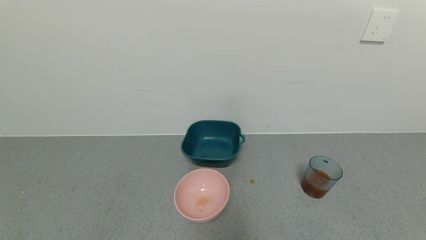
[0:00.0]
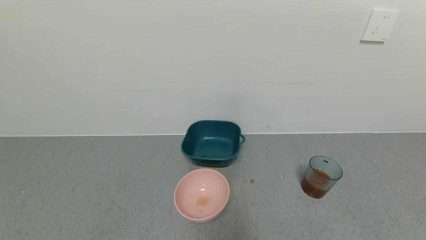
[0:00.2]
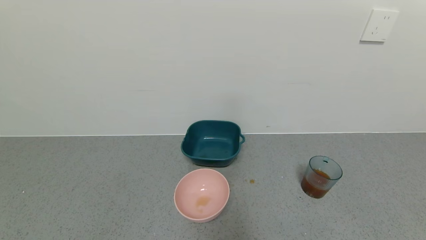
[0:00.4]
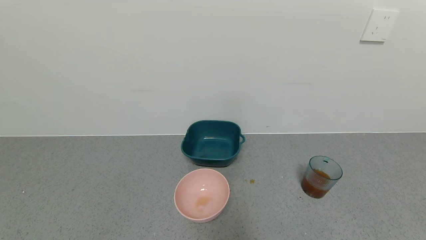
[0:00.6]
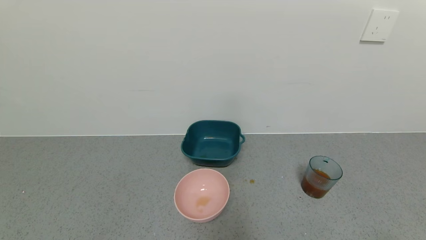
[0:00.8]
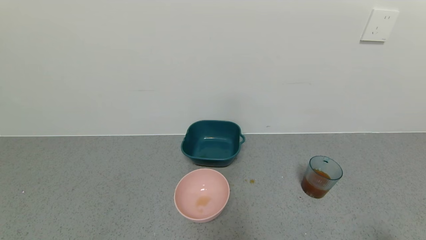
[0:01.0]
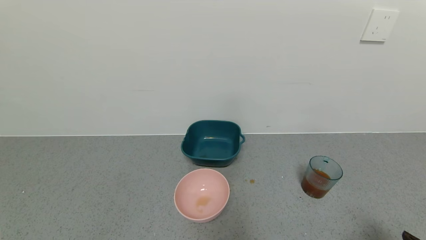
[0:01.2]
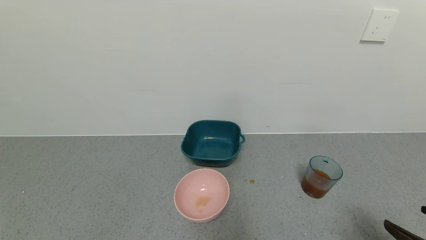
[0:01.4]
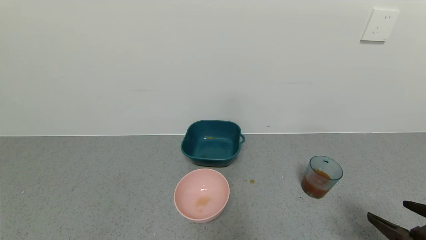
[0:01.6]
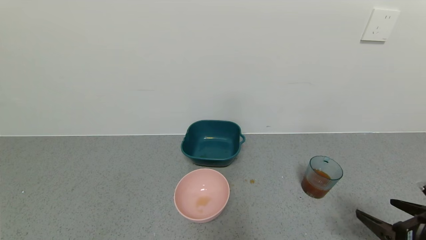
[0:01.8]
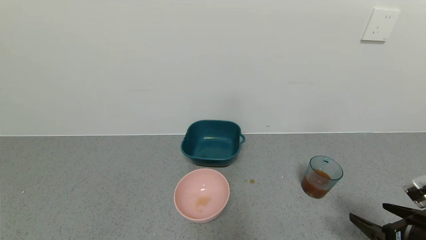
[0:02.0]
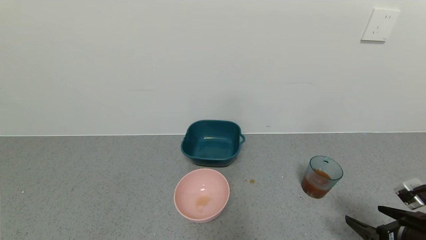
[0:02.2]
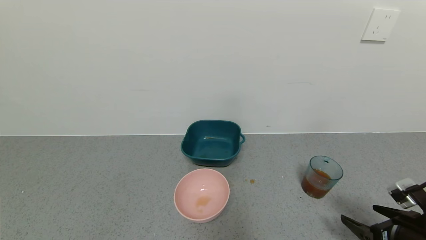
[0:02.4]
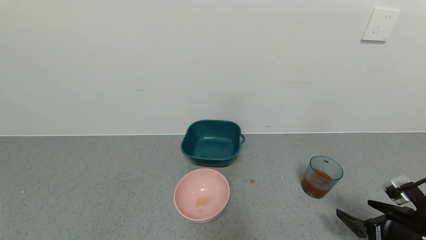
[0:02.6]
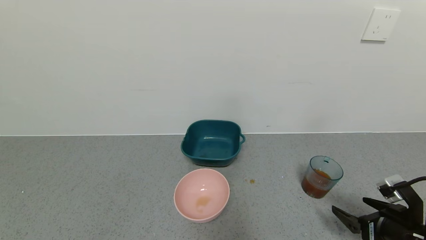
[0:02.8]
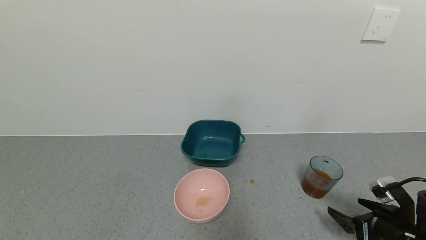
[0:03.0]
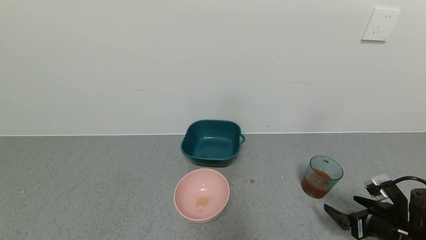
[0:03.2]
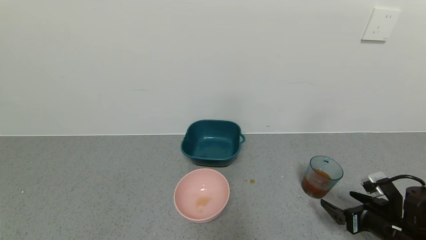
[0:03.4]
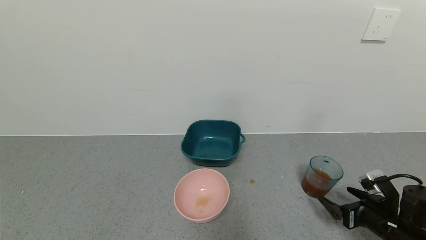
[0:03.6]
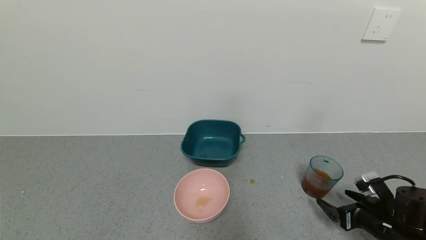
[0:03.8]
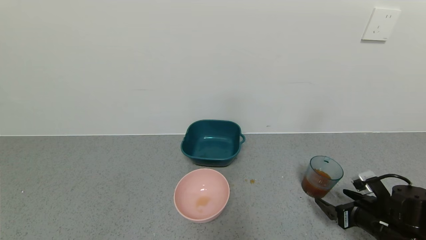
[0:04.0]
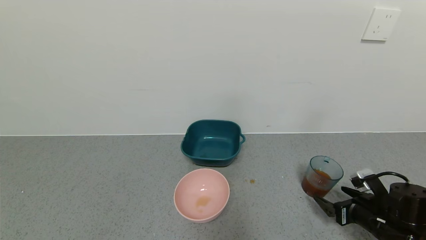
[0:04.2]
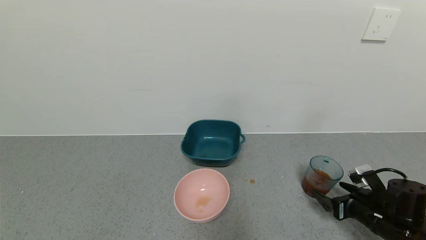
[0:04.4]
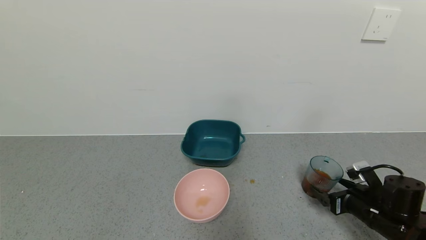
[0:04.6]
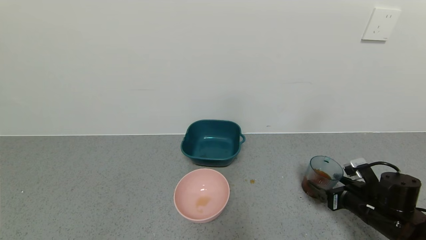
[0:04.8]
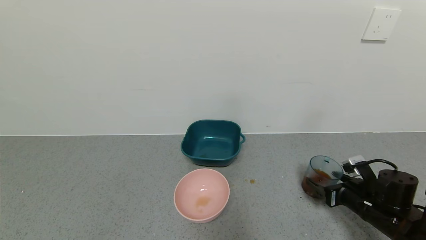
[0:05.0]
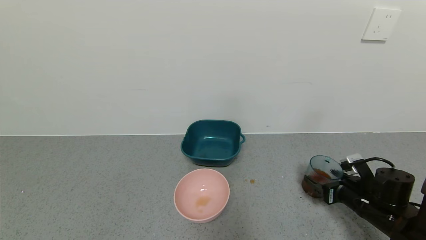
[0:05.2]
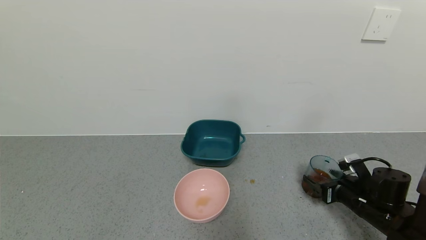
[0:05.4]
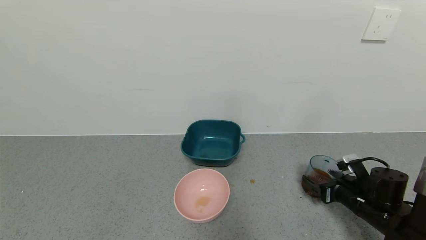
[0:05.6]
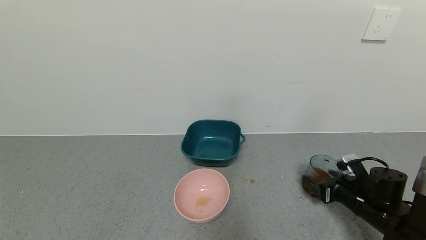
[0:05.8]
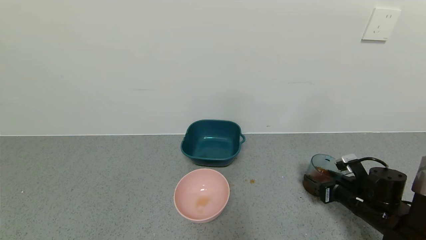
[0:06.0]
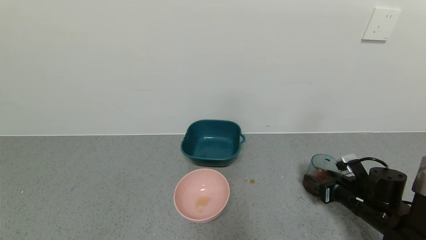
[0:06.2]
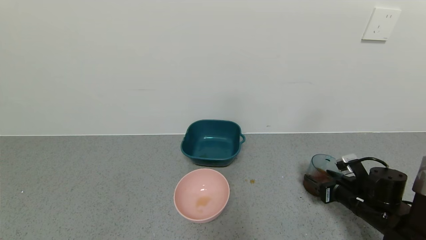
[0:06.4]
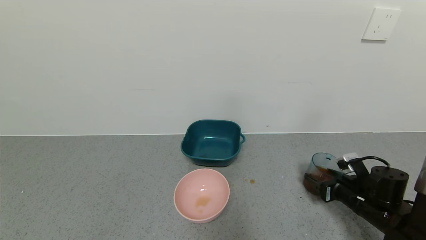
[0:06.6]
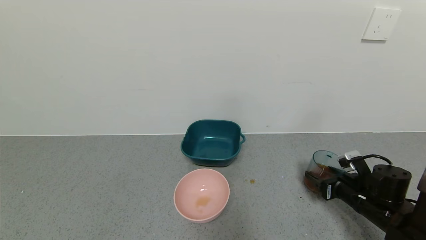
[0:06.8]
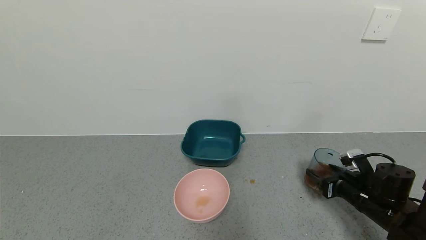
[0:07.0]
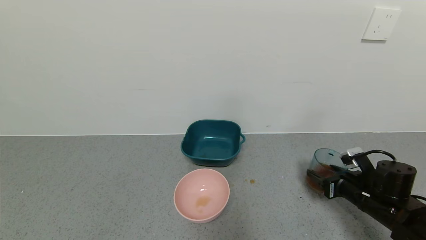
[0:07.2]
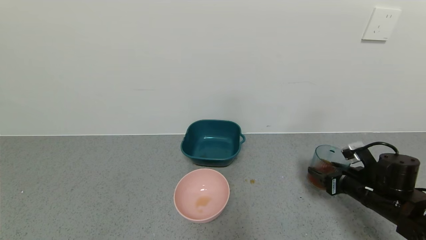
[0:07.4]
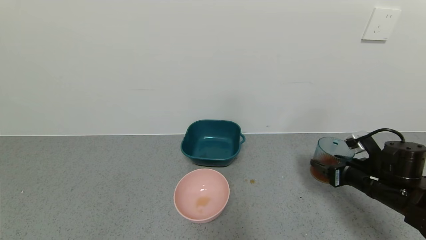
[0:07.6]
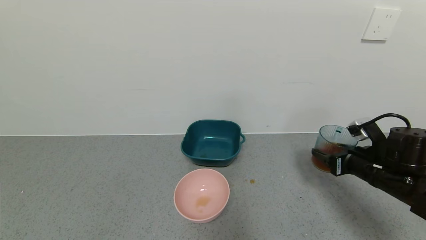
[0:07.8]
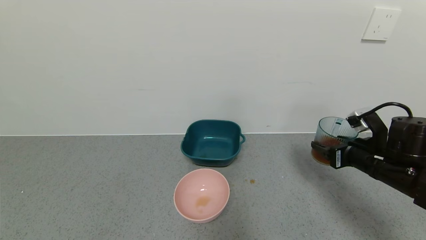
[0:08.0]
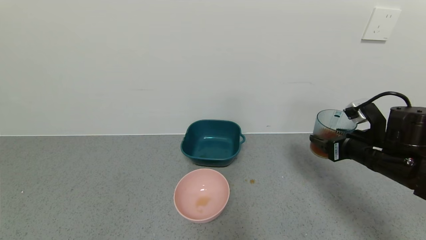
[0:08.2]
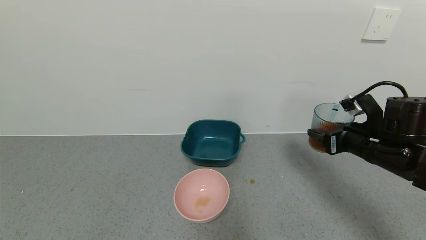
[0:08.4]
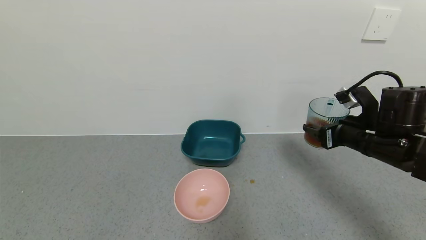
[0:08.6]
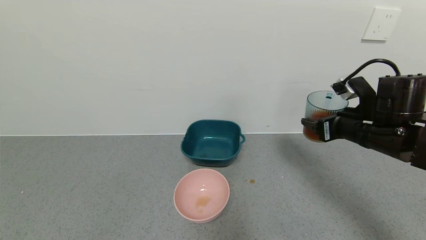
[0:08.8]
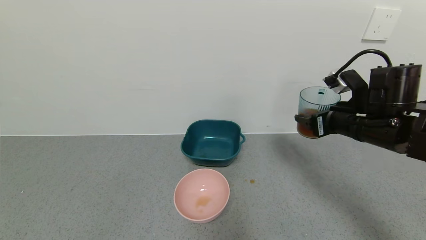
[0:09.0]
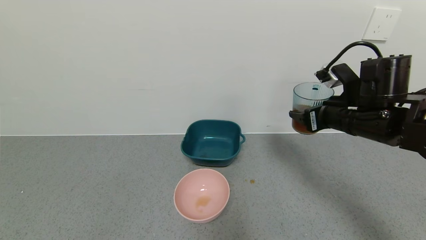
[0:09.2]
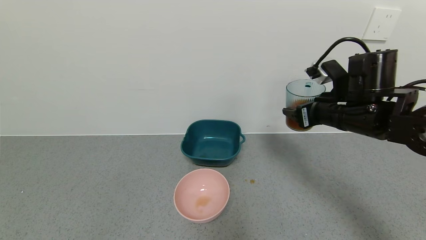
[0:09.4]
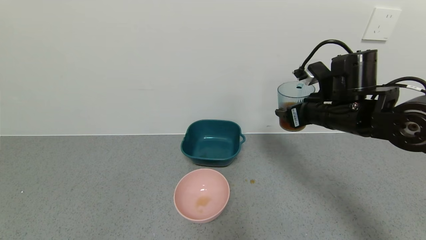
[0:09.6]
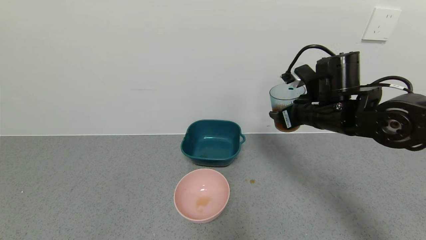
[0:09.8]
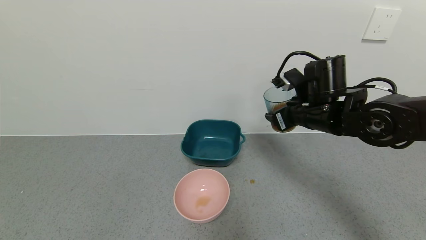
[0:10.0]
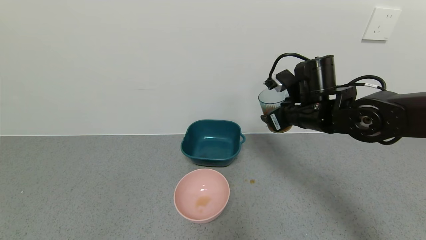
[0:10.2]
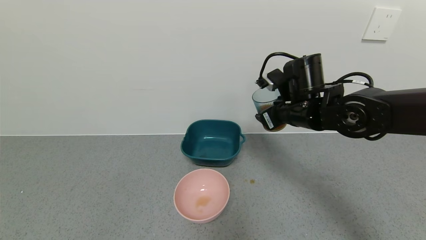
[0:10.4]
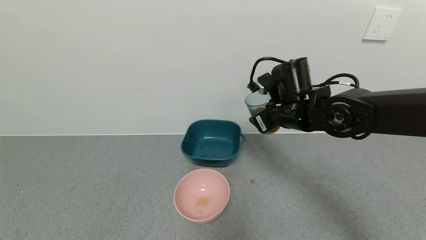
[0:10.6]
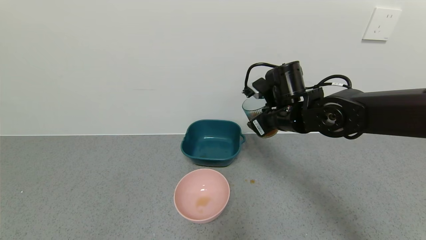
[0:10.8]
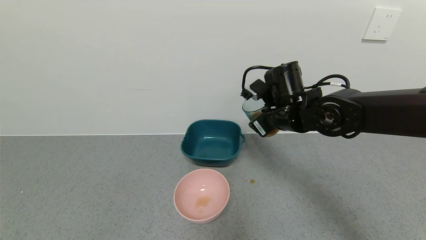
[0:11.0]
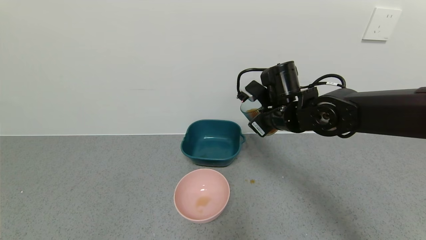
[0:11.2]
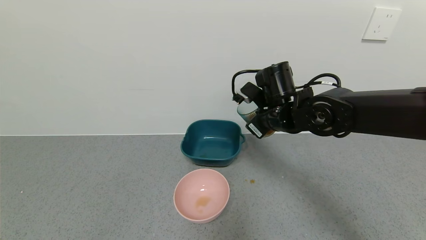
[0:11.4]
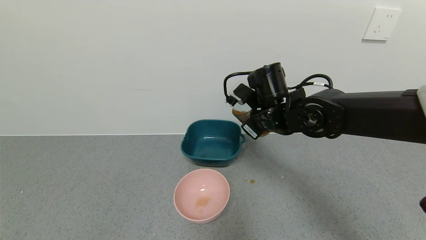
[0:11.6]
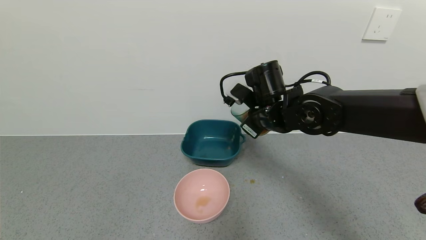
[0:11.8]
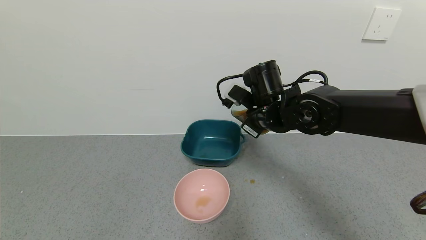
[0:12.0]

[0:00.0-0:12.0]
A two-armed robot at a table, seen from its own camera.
Task of the whole recording: use a gripper to pick up the cup and pour the liquid into a bowl or tray.
Step, 0:06.4 to 0:11.4: Pick up blue cup filled with tea with right gripper.
0:00.0 to 0:01.6: The right gripper heads forward and upward, covering some 15 cm.
0:01.6 to 0:03.0: The right gripper moves downward and forward, some 10 cm.
0:03.0 to 0:04.4: The right gripper moves forward, about 5 cm.
0:04.4 to 0:06.0: The right gripper closes its fingers.
0:06.0 to 0:07.6: The right gripper moves upward, roughly 5 cm.
0:07.6 to 0:09.0: The right gripper moves upward and to the left, approximately 15 cm.
0:09.0 to 0:10.4: The right gripper heads to the left and forward, covering some 10 cm.
0:10.4 to 0:12.0: The right gripper travels to the left by roughly 5 cm.

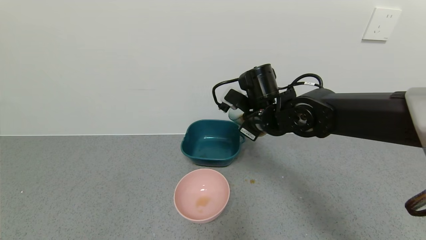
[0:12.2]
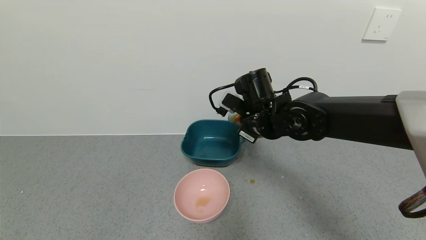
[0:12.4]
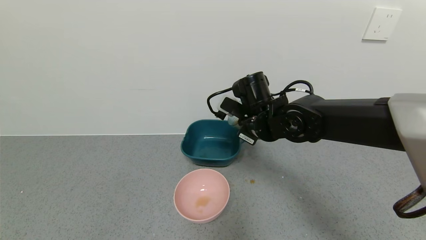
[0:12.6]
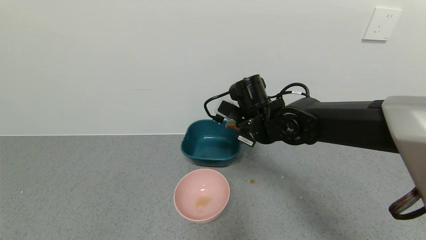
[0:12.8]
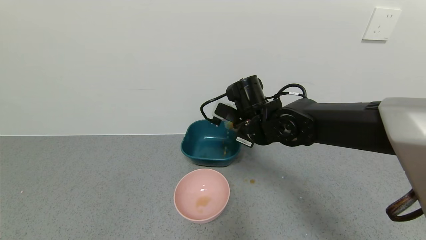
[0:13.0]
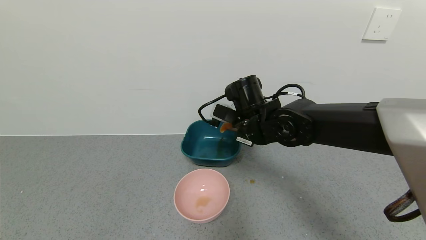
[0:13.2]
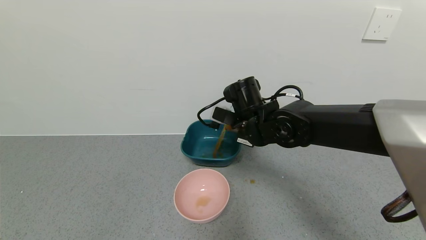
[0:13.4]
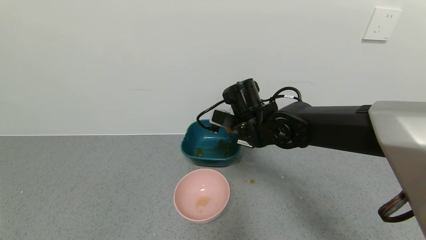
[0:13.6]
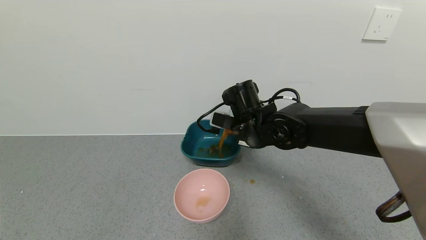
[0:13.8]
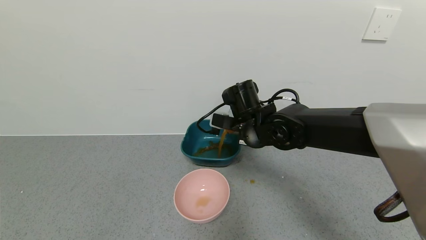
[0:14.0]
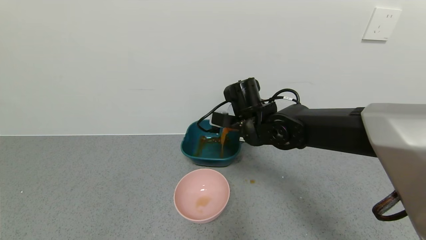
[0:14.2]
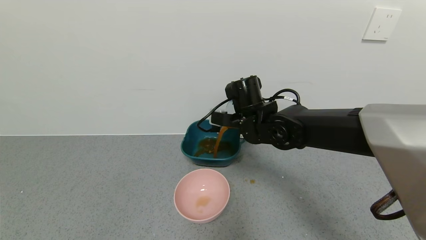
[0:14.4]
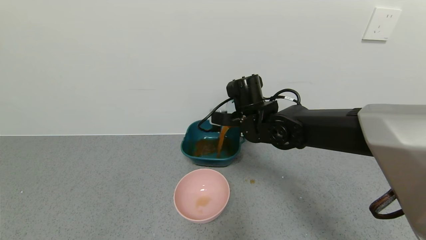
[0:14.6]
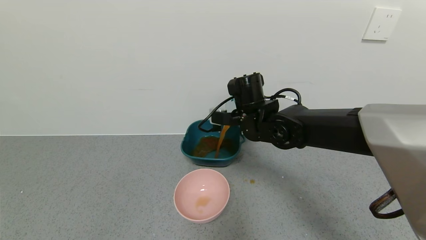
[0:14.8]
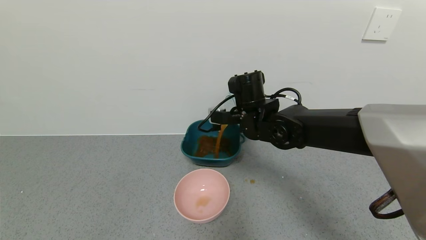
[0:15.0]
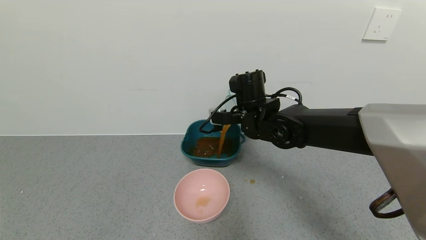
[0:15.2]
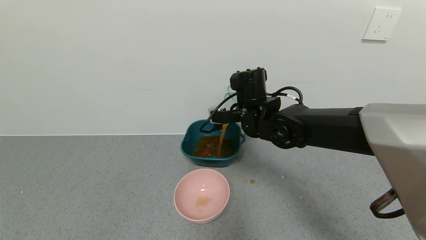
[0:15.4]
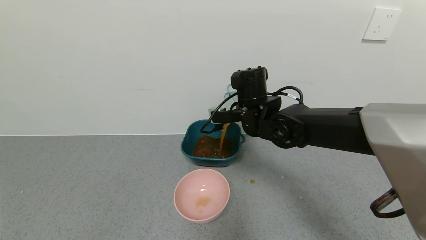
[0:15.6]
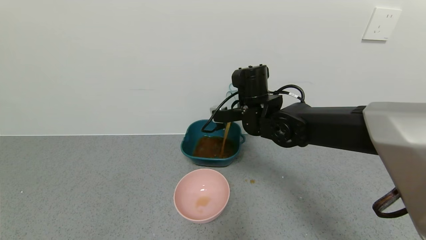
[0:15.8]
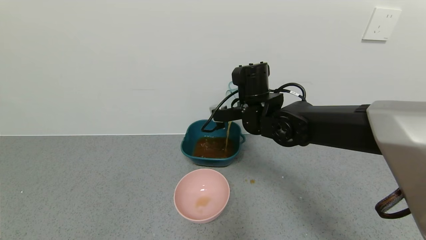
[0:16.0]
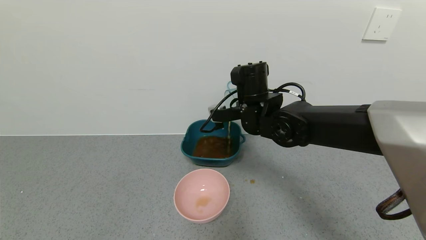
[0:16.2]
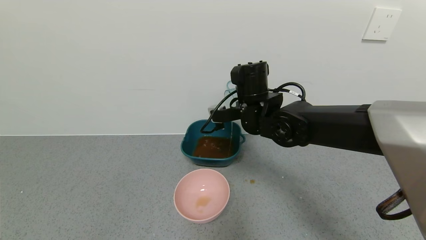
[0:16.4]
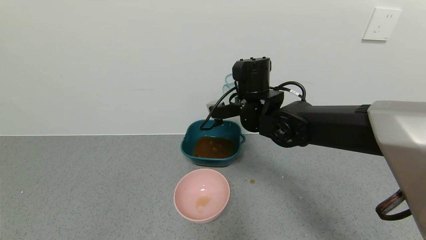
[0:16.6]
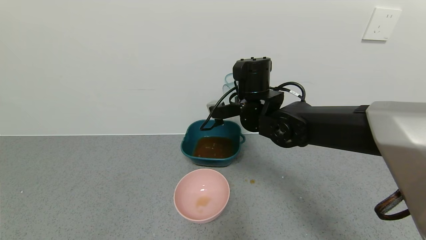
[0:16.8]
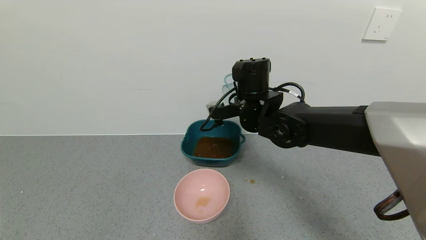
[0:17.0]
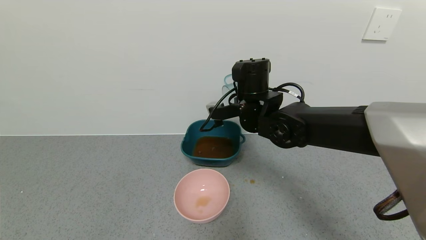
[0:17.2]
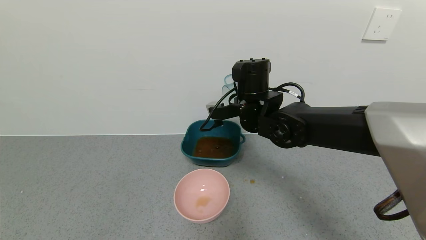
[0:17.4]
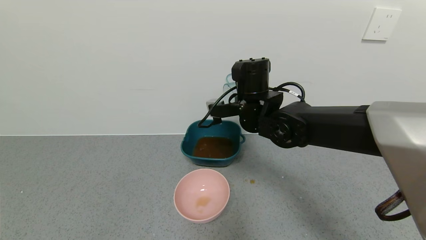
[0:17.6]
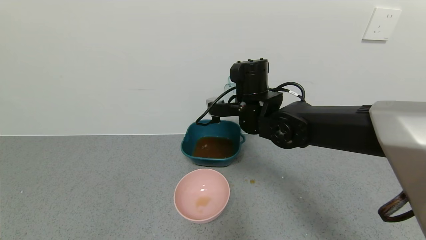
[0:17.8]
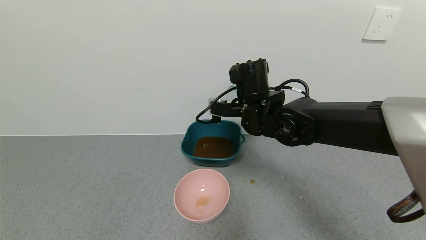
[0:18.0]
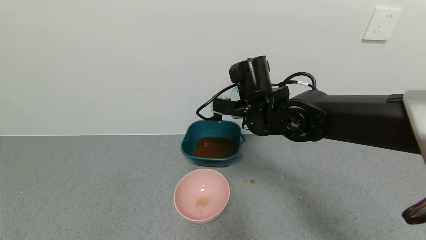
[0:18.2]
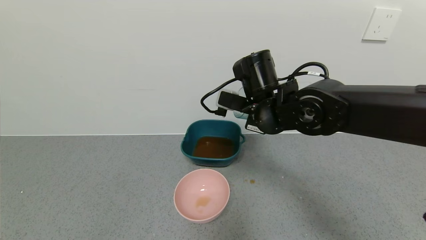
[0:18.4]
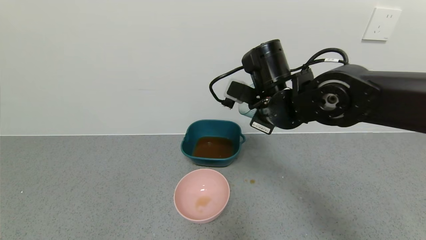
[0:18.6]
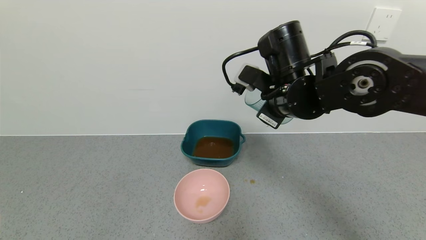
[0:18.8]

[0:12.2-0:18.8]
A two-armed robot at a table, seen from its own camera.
Task of the whole recording: use a gripper to pick up the cup and pour the liquid into a bowl or tray.
Step, 0:12.2 to 0:18.2: Pour the tea into the blue basin with right gripper.
0:15.4 to 0:17.2: There are only small adjustments of the grippers.
0:17.2 to 0:18.8: The right gripper shifts roughly 10 cm backward and to the right.
